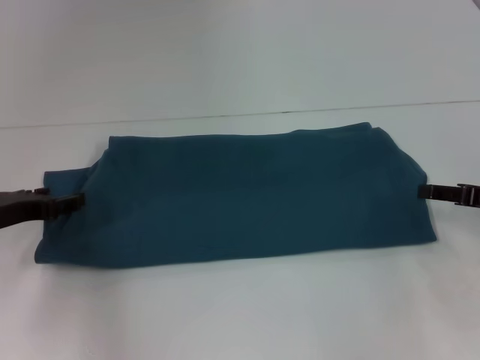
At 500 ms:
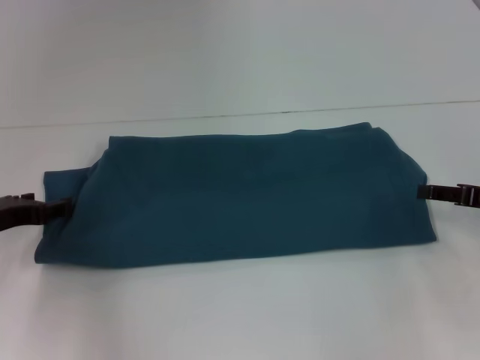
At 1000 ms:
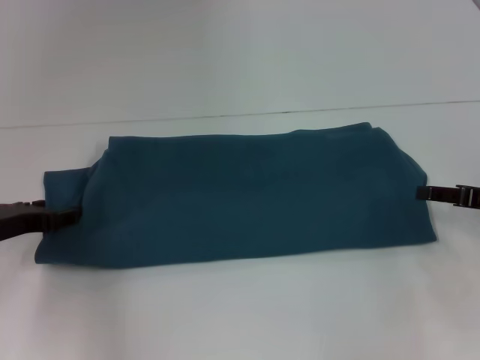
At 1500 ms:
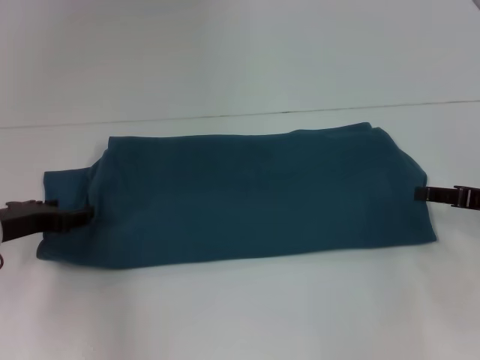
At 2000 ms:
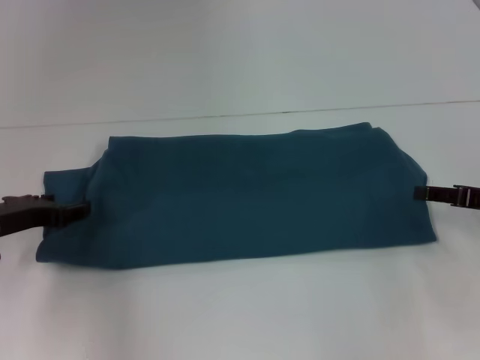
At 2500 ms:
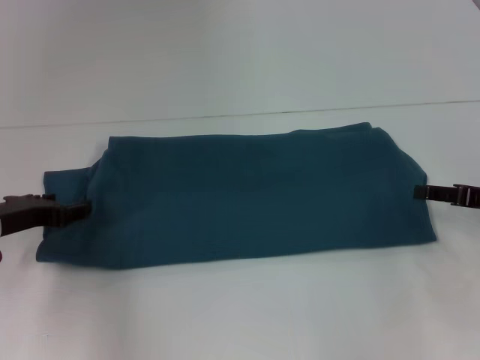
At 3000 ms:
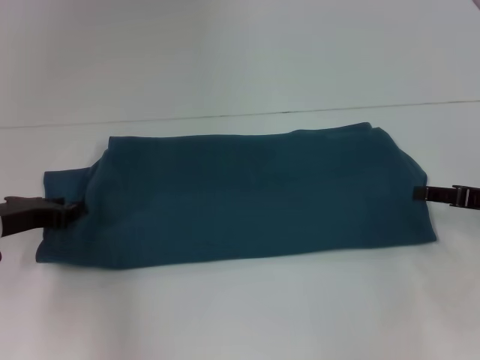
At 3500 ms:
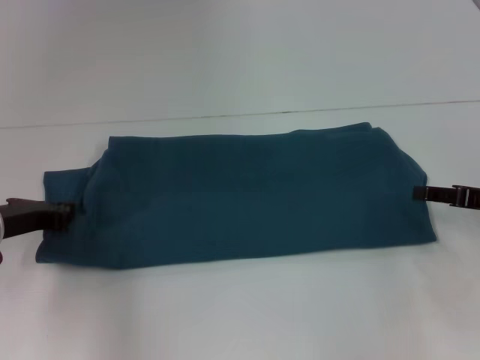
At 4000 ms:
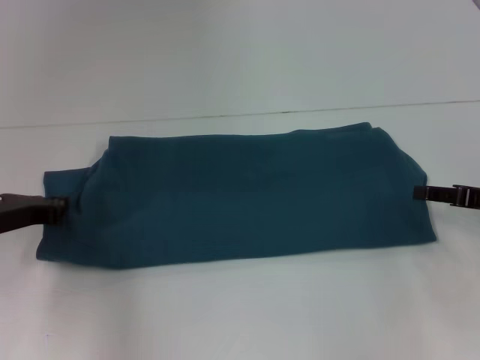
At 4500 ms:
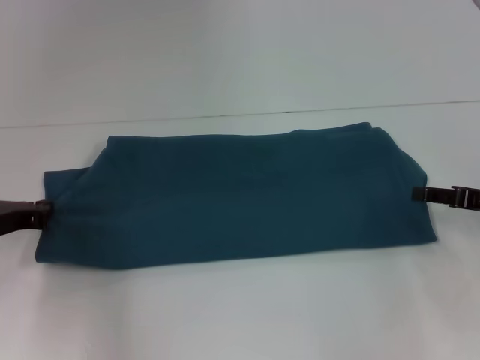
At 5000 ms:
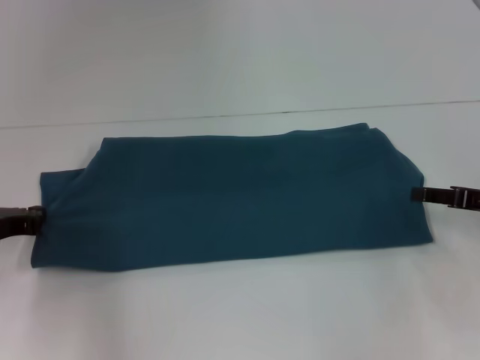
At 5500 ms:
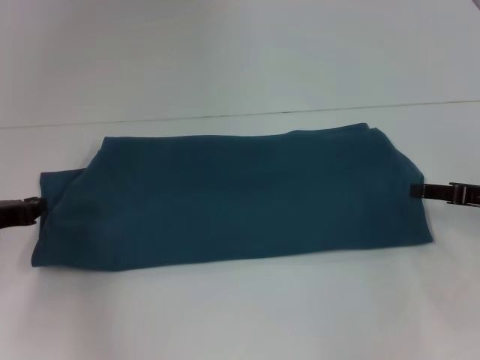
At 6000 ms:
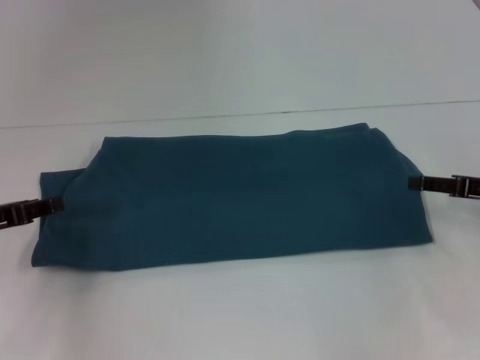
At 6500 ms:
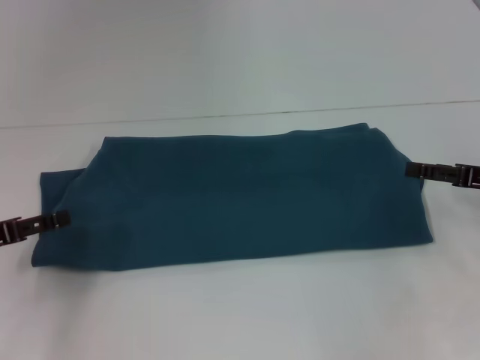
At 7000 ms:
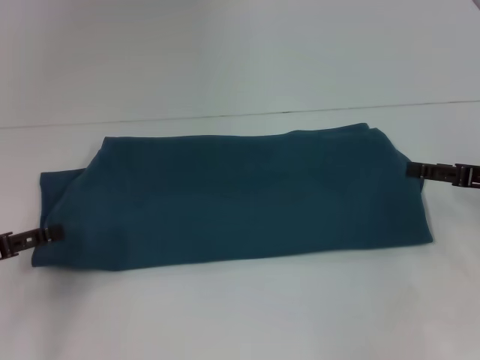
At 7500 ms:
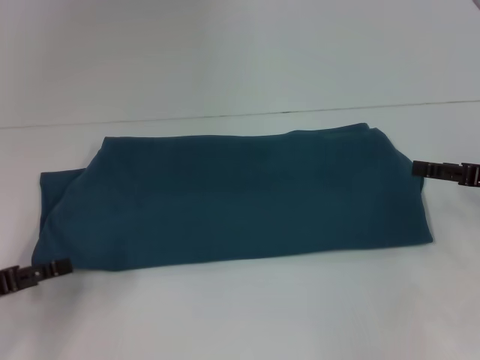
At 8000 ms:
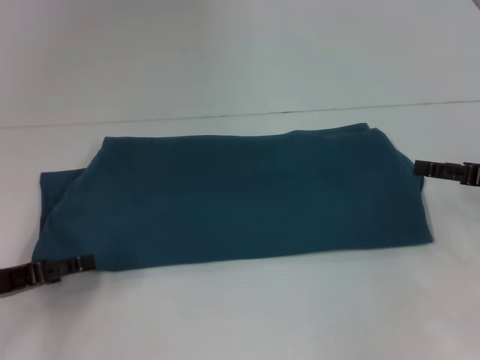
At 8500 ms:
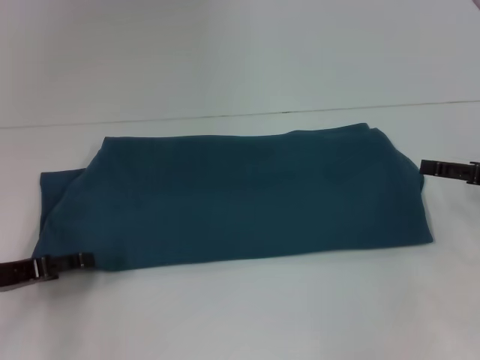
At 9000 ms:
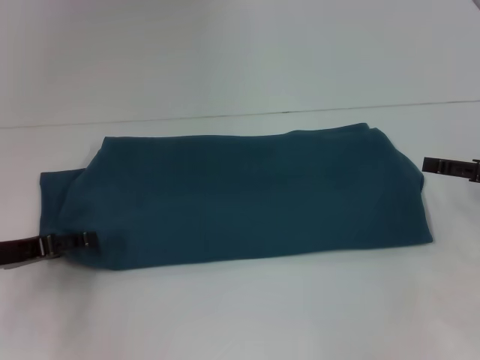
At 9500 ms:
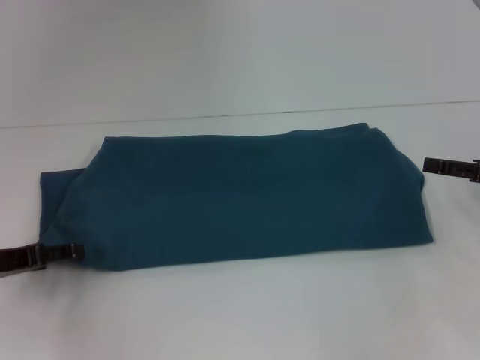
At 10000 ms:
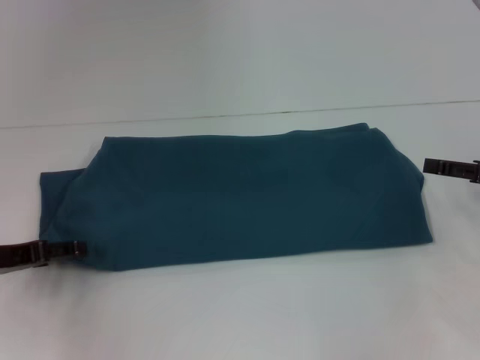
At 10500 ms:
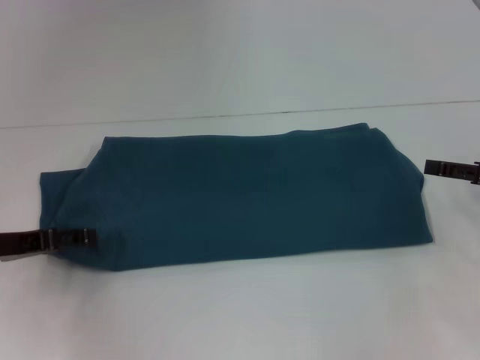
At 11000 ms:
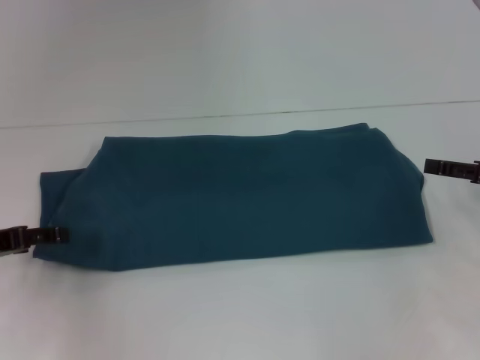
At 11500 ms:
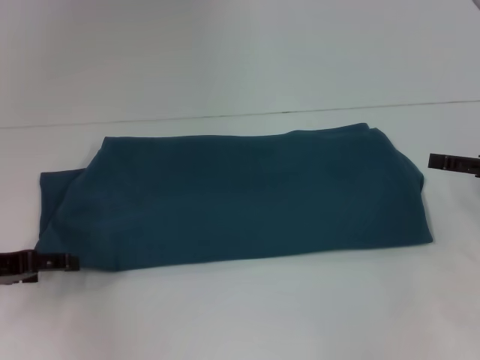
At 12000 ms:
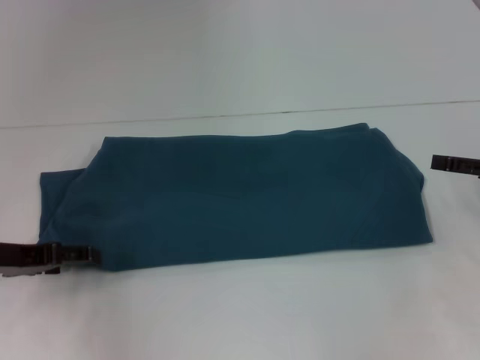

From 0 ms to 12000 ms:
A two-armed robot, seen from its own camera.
From 0 ms to 2000 ms: The grippers make only small movements.
From 4000 ms to 6000 ms: The left gripper changes place by approximately 5 cm.
From 6000 ms to 8000 ms: The left gripper opens up.
From 8000 ms to 12000 ms: There are only small adjustments of the grippers.

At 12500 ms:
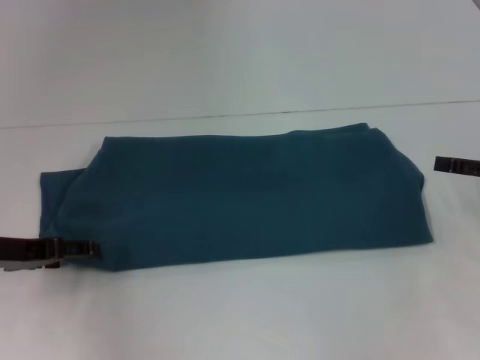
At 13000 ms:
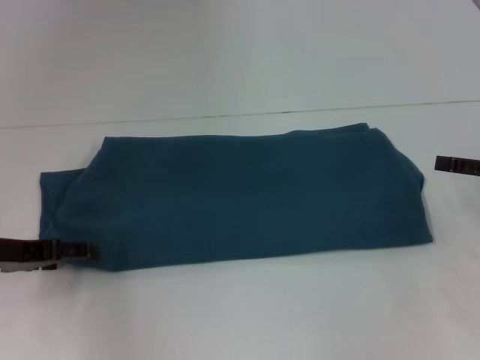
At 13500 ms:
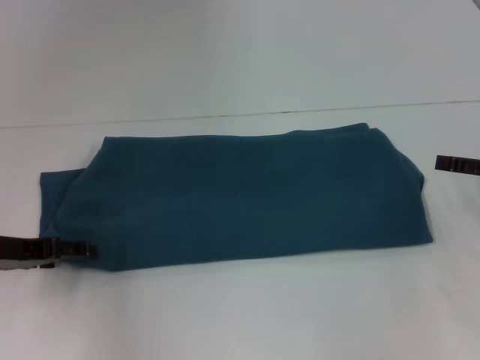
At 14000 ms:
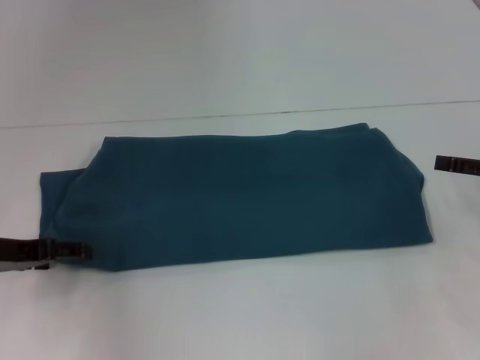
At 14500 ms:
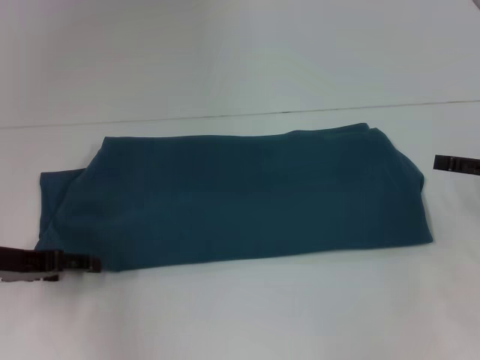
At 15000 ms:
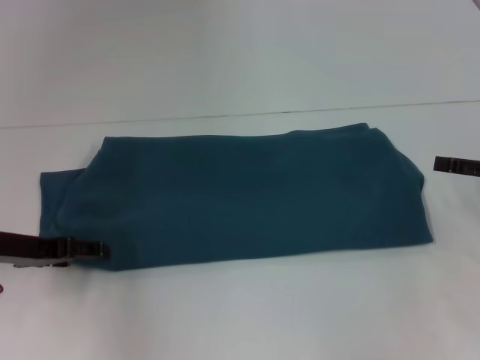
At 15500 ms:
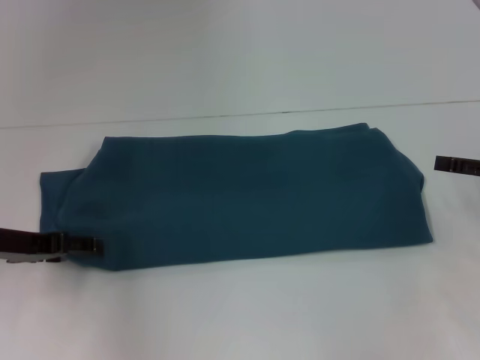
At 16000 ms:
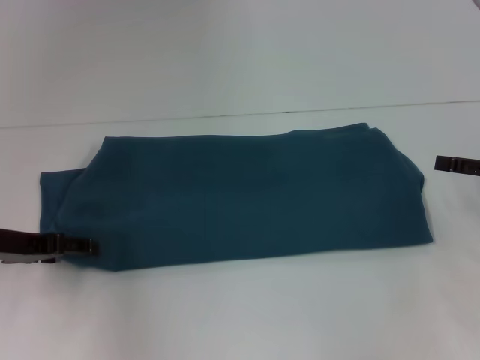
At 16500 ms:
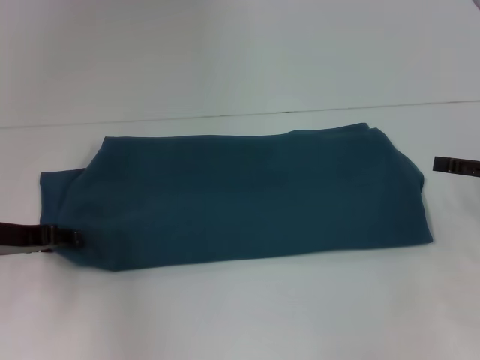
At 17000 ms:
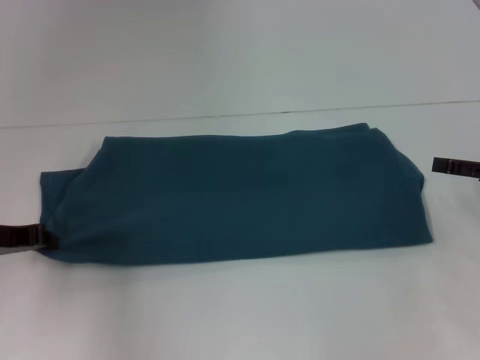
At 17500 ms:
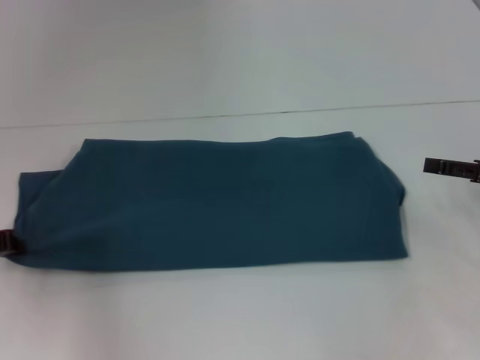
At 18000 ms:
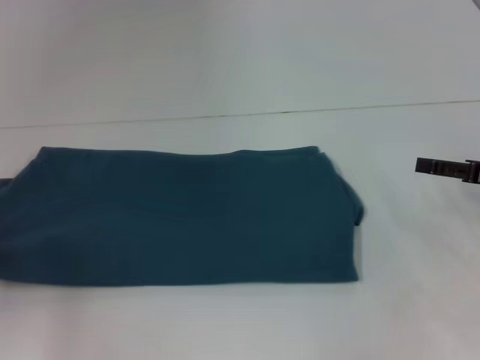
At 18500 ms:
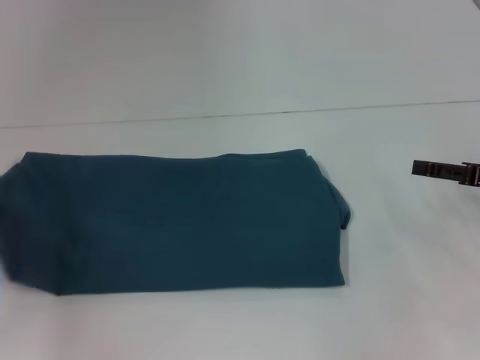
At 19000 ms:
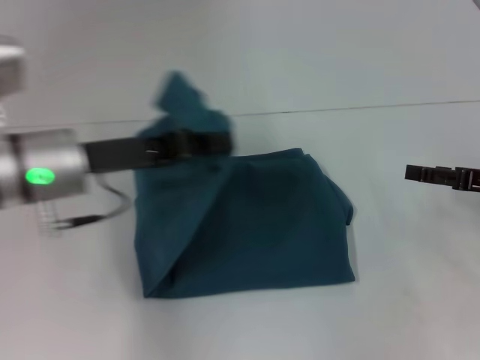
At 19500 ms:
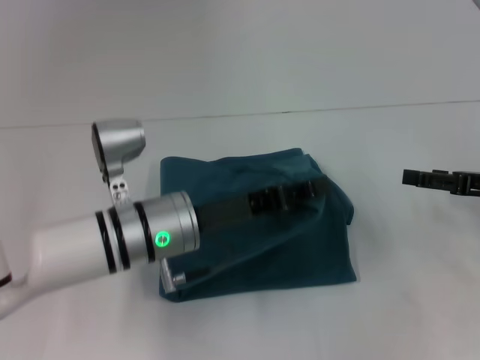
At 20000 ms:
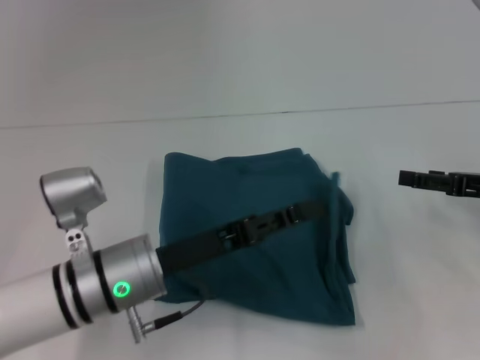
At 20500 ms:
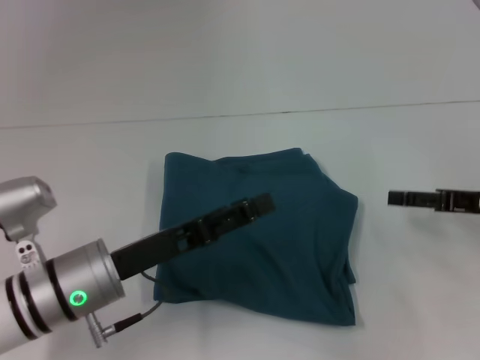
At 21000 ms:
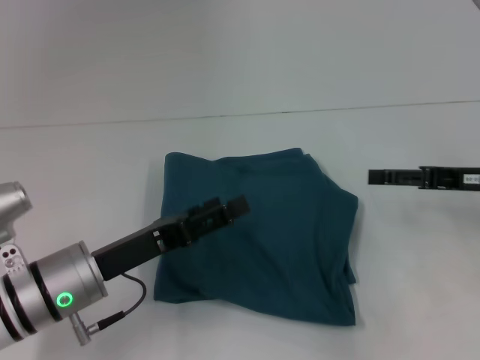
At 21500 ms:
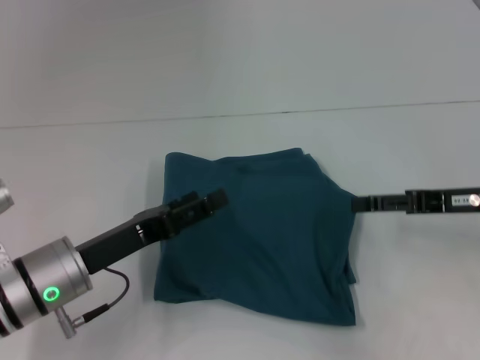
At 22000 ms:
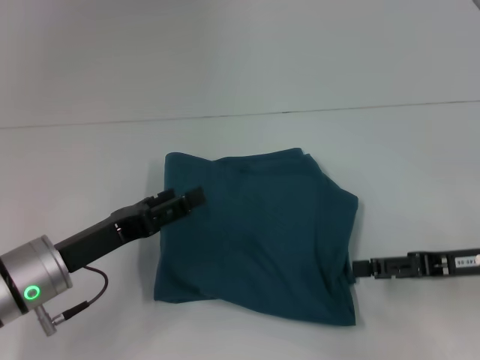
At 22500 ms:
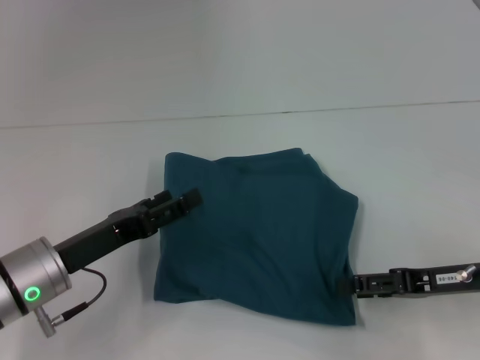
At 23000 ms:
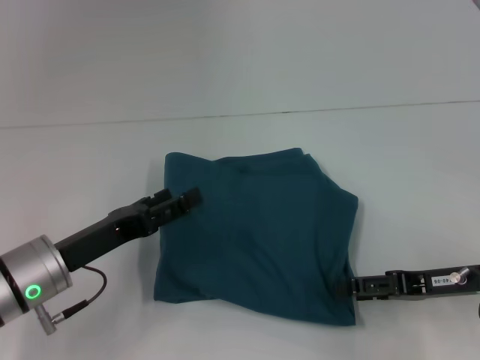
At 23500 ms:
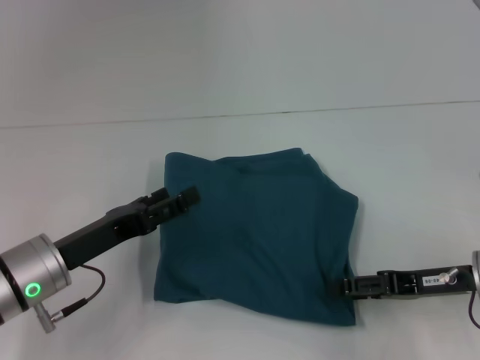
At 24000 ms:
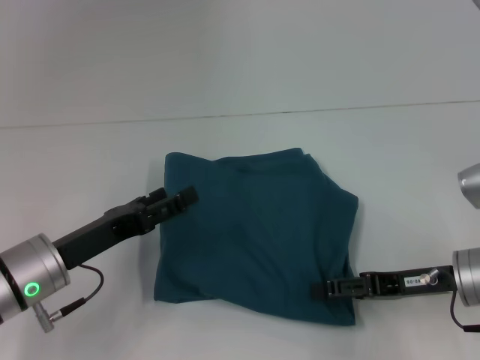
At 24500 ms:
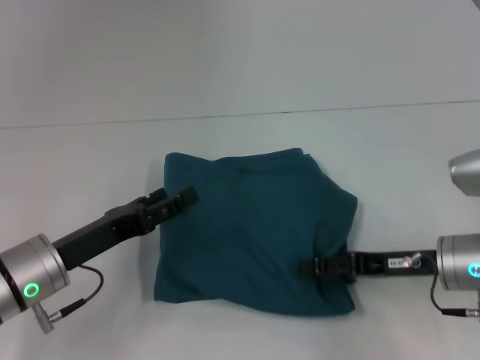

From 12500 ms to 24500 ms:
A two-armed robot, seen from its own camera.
Step, from 12500 ms to 19500 ms: Fold the clothes to the left.
From 12500 ms to 14500 ms: Both grippers stay put.
From 14500 ms to 16500 ms: The grippers make only small movements.
From 16500 ms to 18500 ms: The left gripper moves to the left and backward, some 10 cm, and closes.
From 18500 ms to 20500 ms: The left gripper goes some 20 cm to the right, and opens.
From 20500 ms to 22500 ms: The two grippers go some 5 cm to the left.
From 22500 ms to 24500 ms: The grippers stay close to where they were, moving slightly.

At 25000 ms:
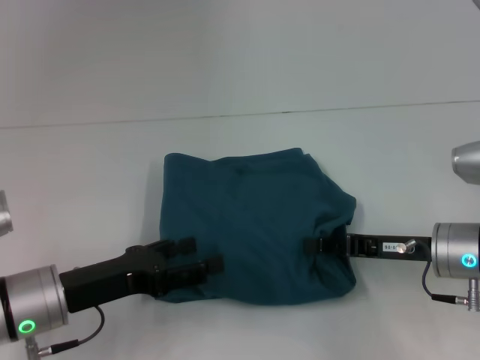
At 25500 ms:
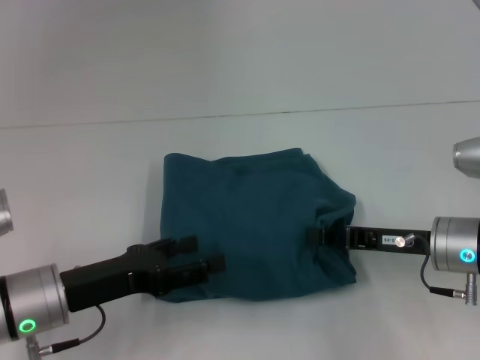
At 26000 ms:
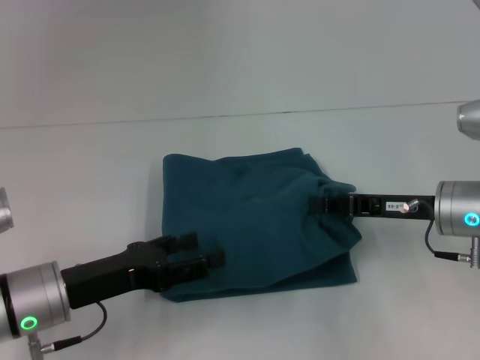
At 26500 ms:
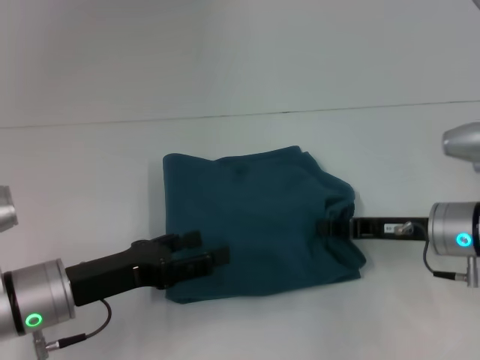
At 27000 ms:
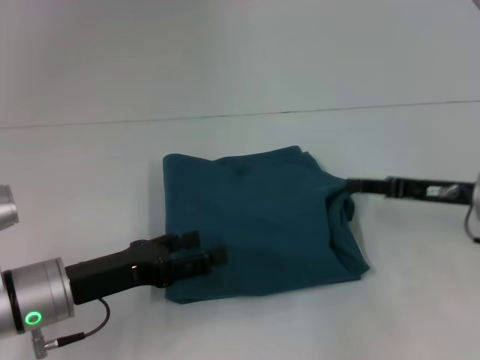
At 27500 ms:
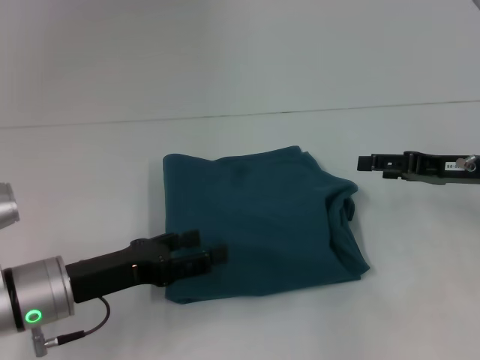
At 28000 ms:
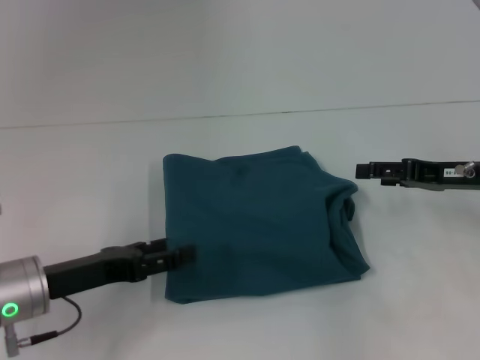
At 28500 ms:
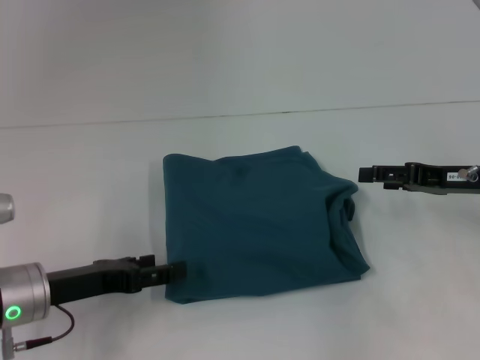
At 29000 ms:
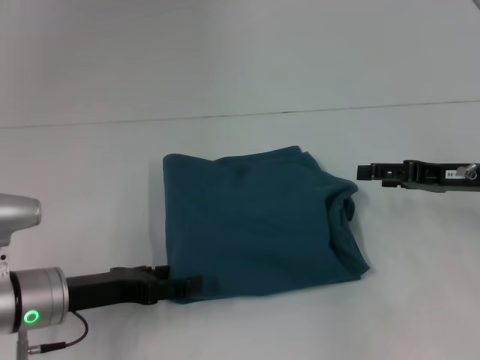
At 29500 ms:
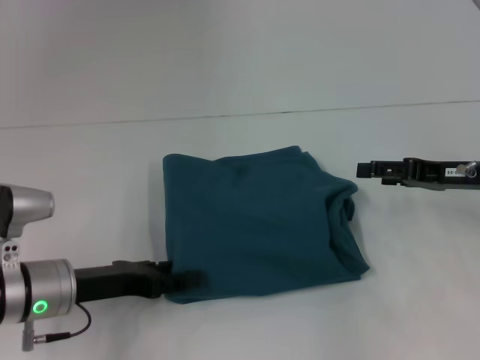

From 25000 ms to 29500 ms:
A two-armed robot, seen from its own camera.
From 25000 ms to 27000 ms: The right gripper changes place by approximately 5 cm.
From 27000 ms to 29500 ms: The right gripper opens its fingers.
